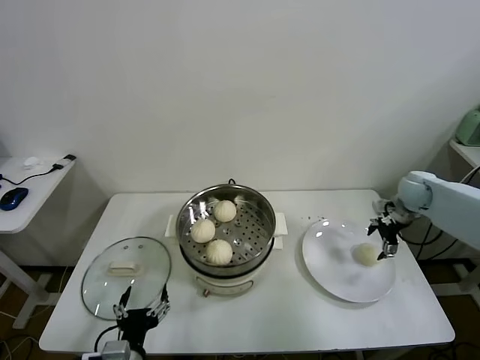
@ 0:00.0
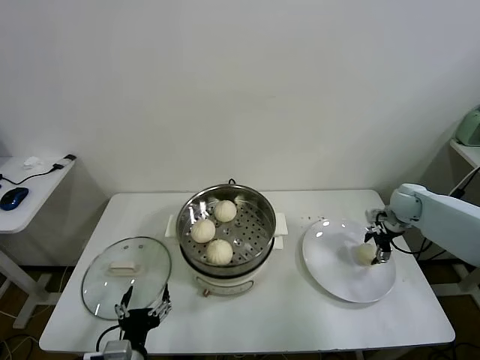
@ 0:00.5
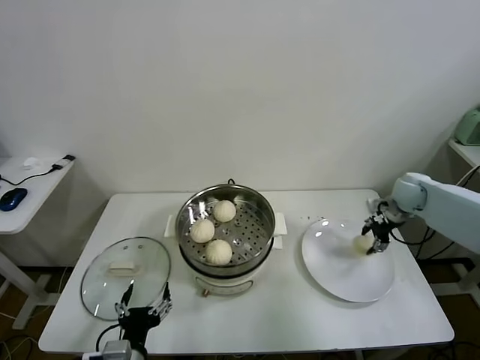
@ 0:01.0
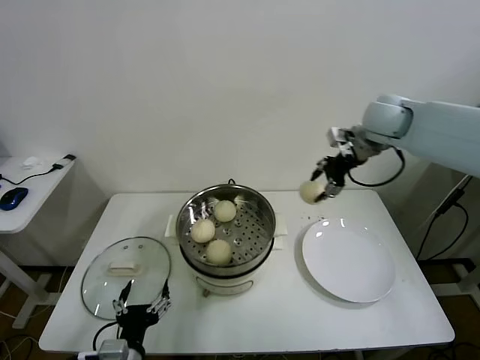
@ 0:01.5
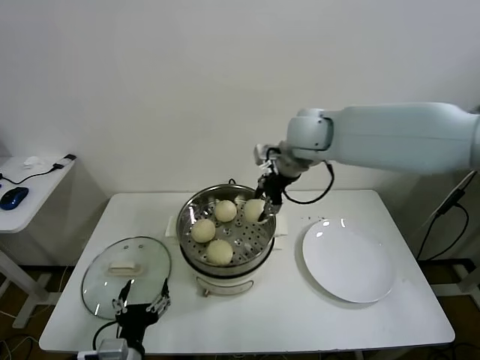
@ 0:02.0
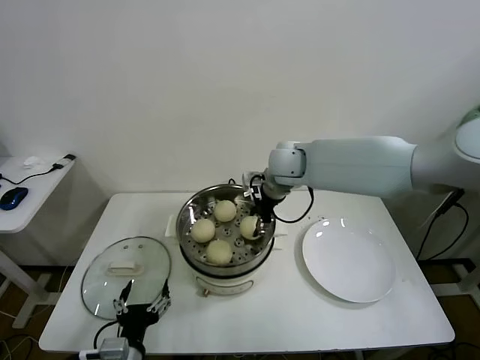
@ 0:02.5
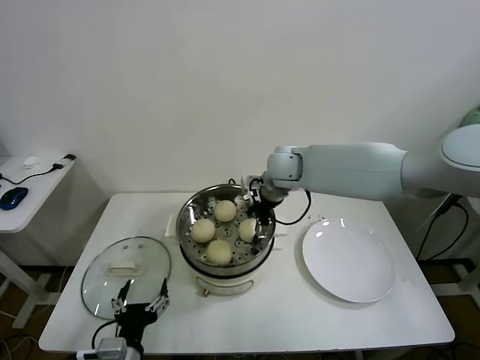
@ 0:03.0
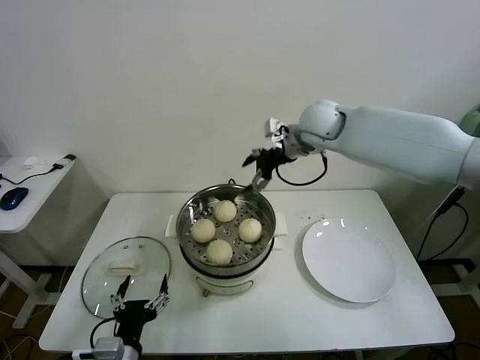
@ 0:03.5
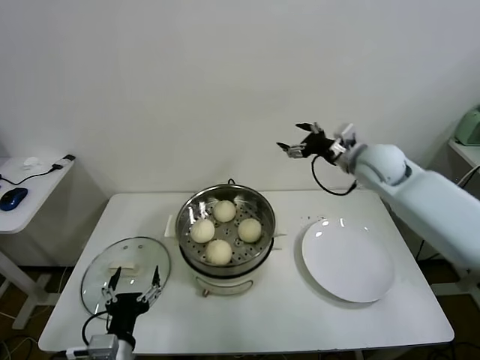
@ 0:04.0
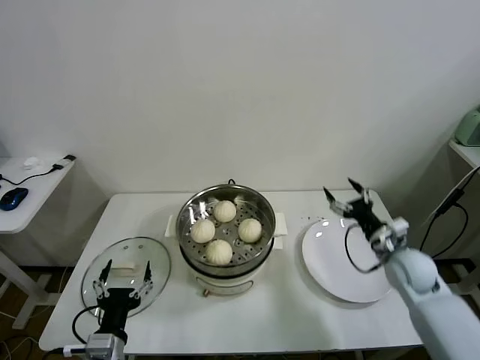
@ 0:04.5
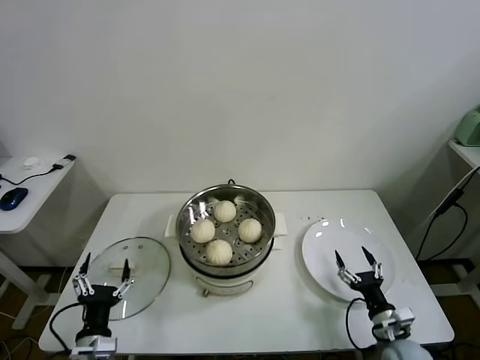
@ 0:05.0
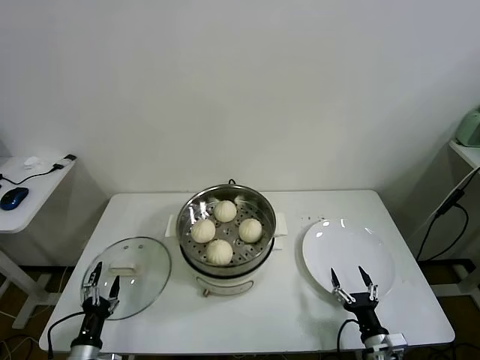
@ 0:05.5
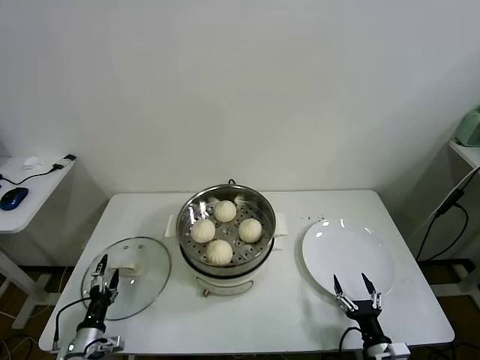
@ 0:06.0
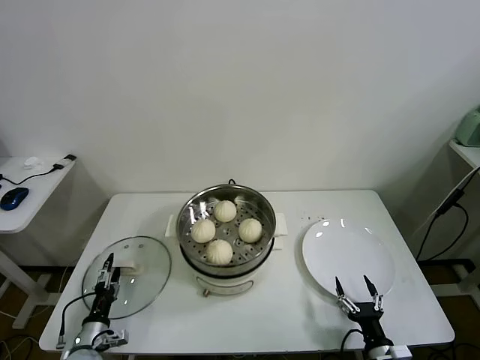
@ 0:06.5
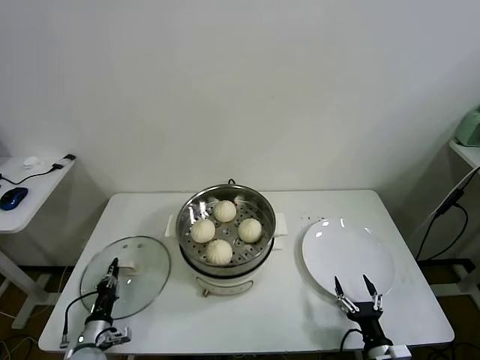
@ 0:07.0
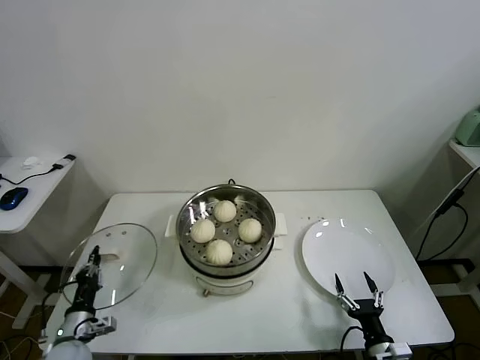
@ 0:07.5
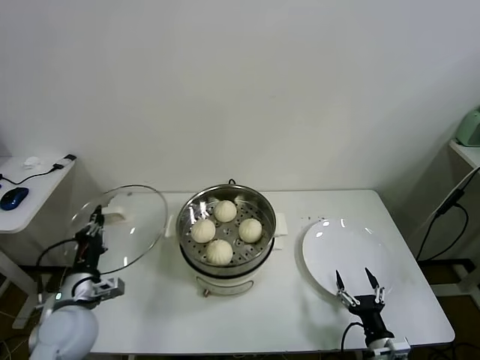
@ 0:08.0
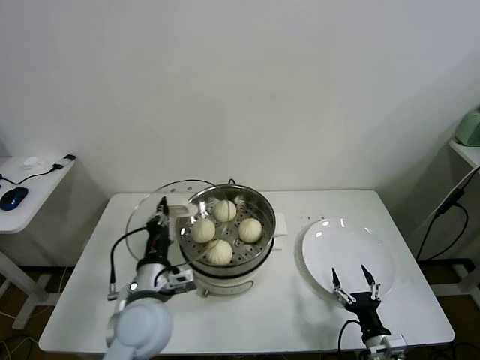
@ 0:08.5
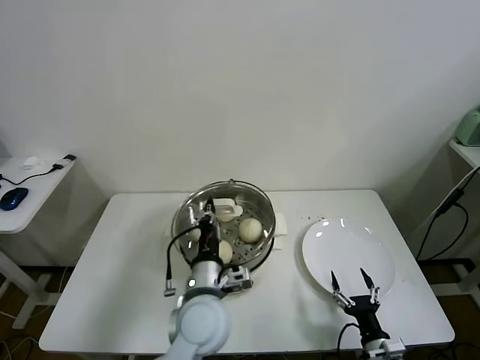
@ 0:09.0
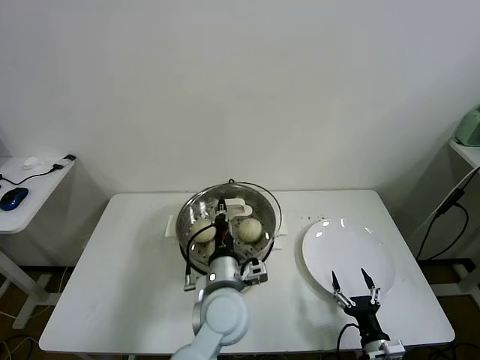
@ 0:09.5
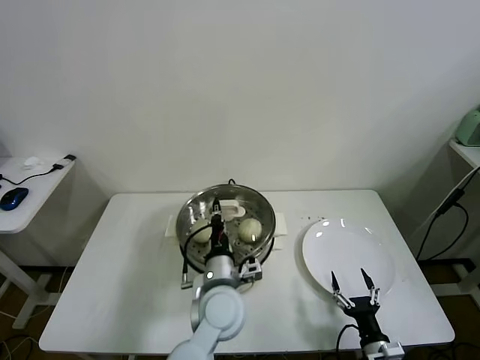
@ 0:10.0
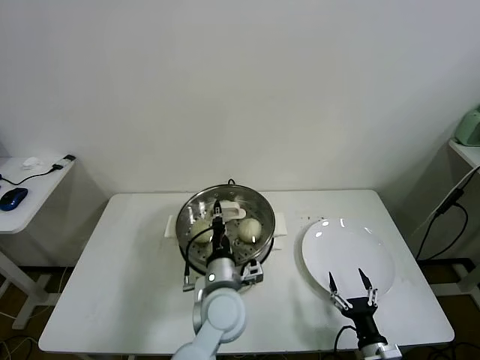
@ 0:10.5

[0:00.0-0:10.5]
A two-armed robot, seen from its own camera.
Task of the whole recording: take steamed baozi put them in steamer.
Step, 0:01.0 to 0:03.0: Place the baozi on the steamer with right gripper.
Step, 0:03.5 to 0:07.0: Grasp the pot lid with left gripper.
0:00.0 to 0:02.0: The right gripper moves to the left and upward, about 35 cm, and closes up.
0:02.0 to 0:04.0: The right gripper travels to the right and downward by about 15 cm, and opens its fingers.
0:04.0 to 0:06.5: The right gripper moves downward and backward, about 50 cm; the left gripper travels downward, to the left and forward by about 25 cm.
0:06.5 to 0:08.5: The left gripper shifts approximately 30 cm upward and to the right, and closes up.
0:08.5 to 0:10.5: The left gripper is displaced to the right by about 15 cm.

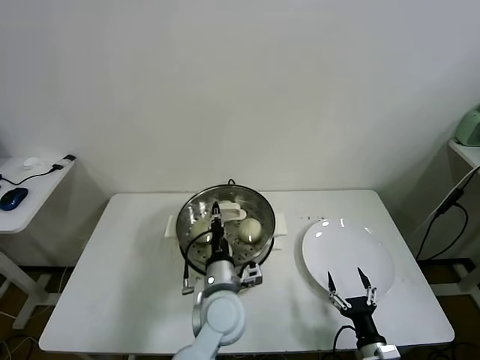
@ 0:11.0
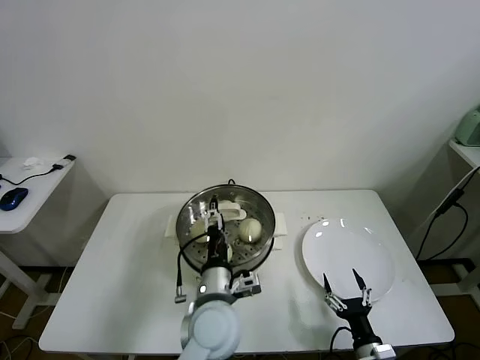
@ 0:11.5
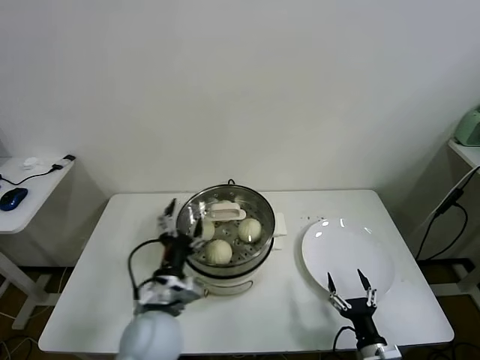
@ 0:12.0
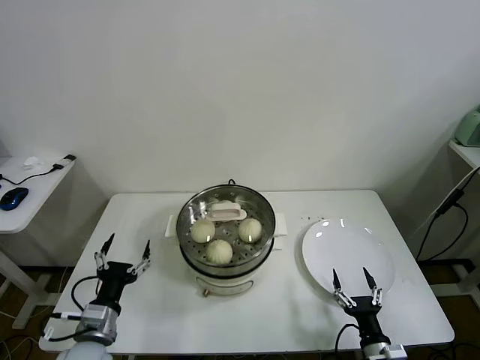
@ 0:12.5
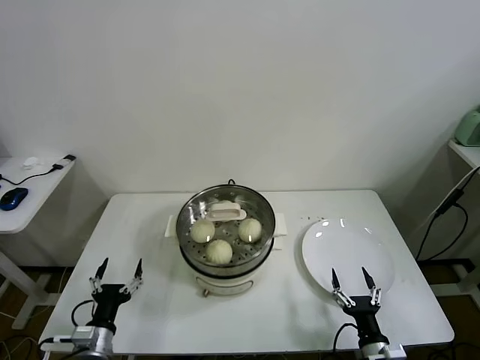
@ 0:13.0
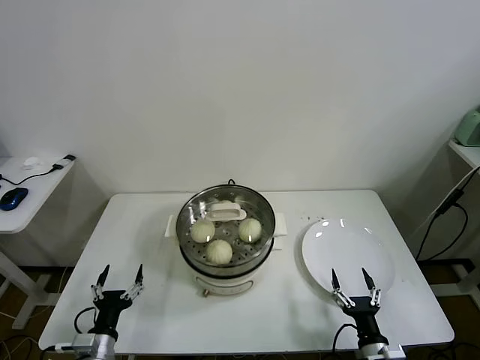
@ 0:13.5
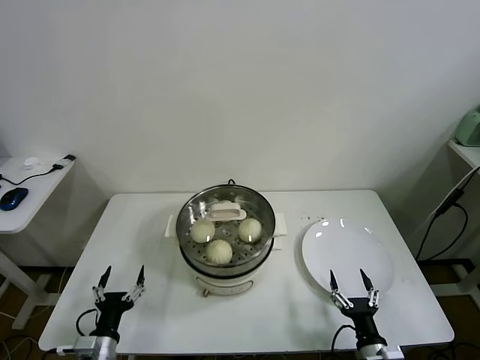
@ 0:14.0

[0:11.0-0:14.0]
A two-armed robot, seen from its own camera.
Task of the whole recording: take steamed baozi put them in steamer.
0:11.0 to 0:12.5: The left gripper moves to the left, about 25 cm, and opens.
0:12.5 to 0:14.0: The left gripper travels downward by about 10 cm.

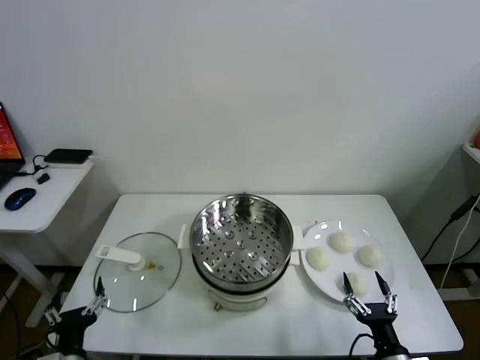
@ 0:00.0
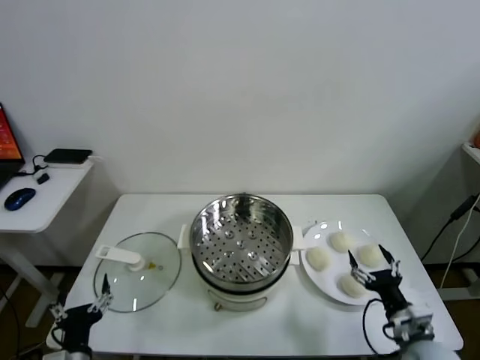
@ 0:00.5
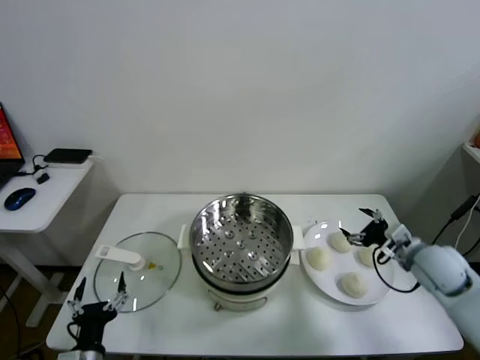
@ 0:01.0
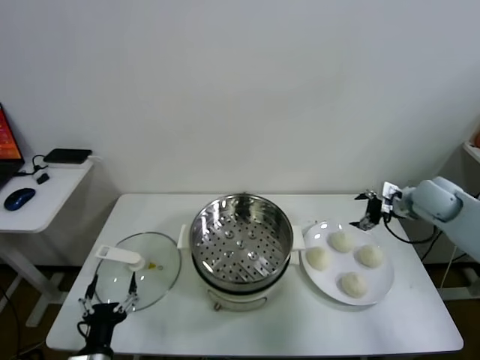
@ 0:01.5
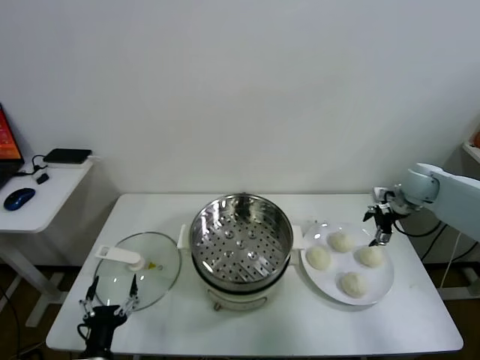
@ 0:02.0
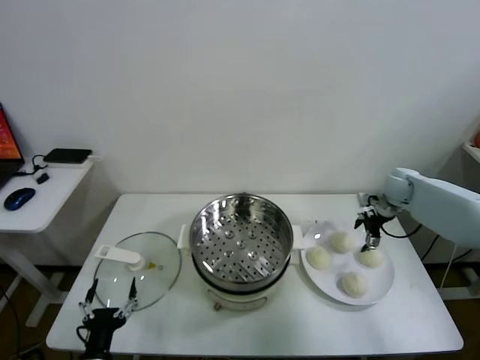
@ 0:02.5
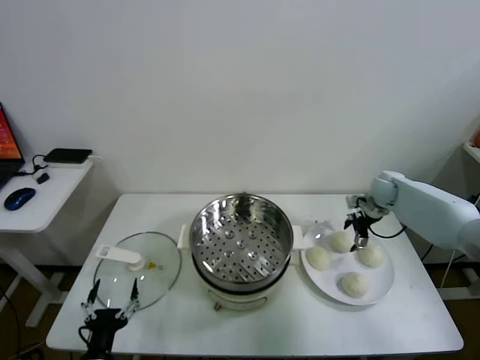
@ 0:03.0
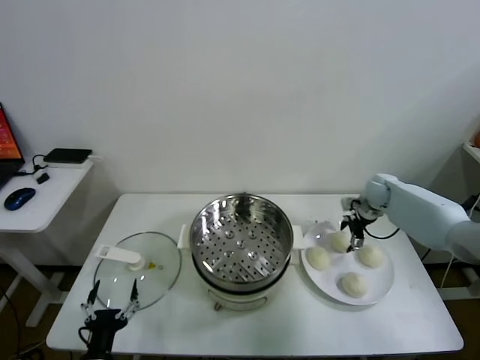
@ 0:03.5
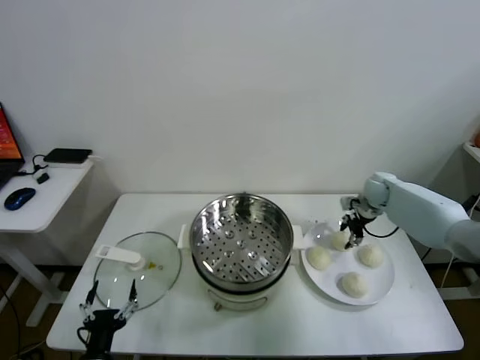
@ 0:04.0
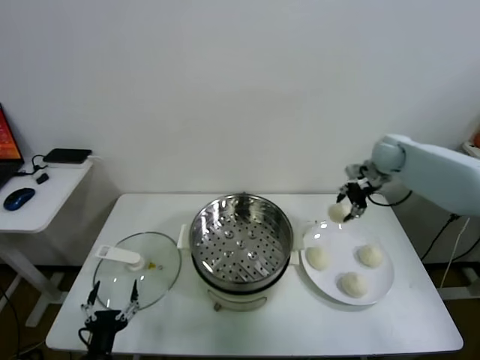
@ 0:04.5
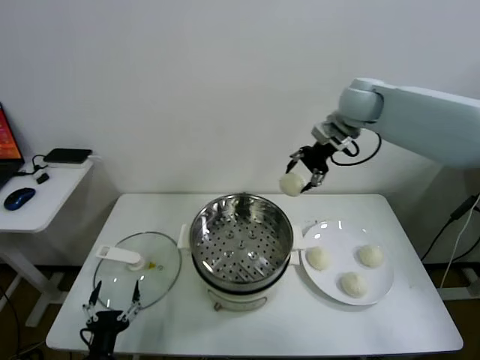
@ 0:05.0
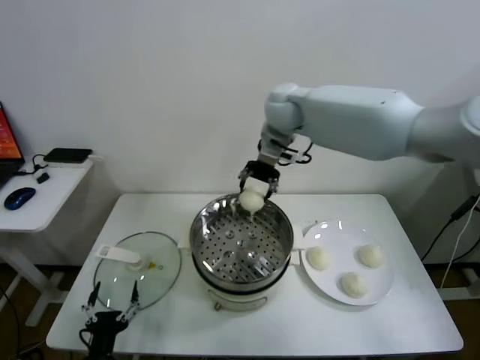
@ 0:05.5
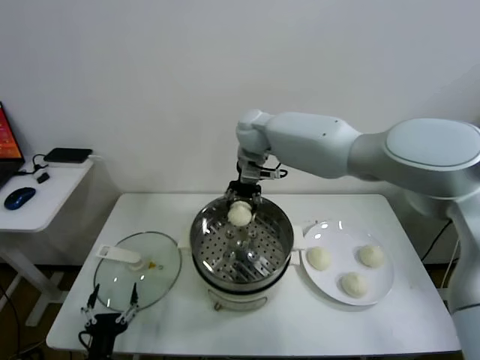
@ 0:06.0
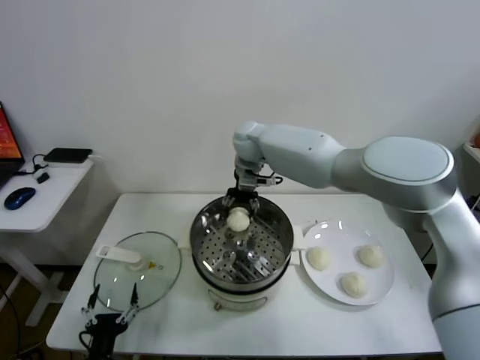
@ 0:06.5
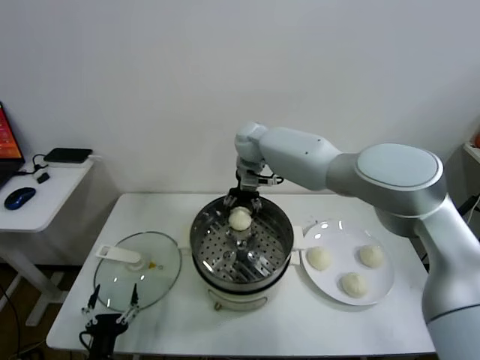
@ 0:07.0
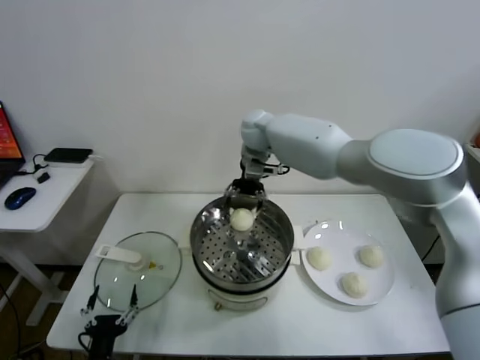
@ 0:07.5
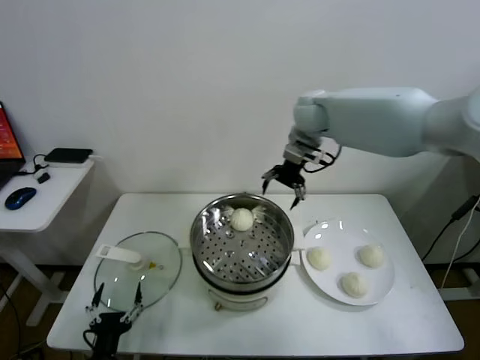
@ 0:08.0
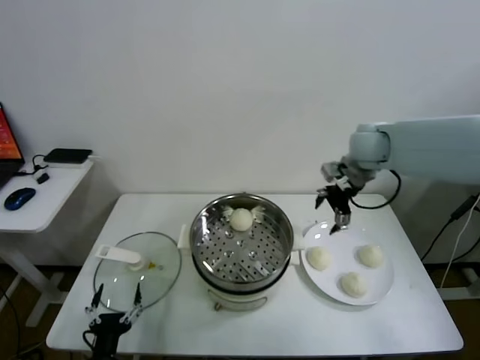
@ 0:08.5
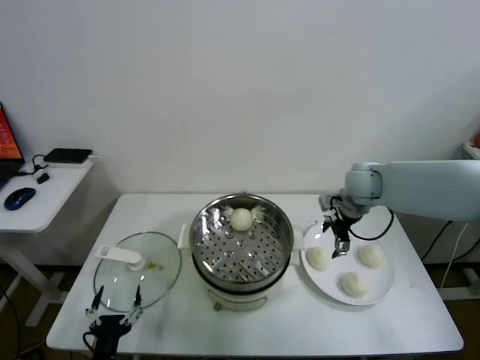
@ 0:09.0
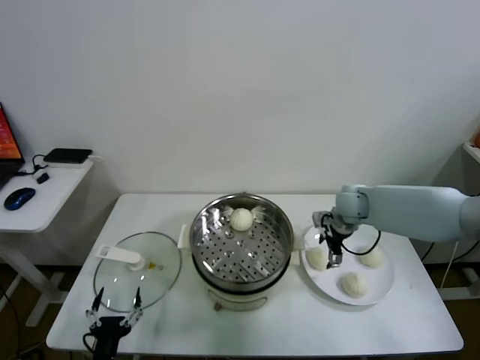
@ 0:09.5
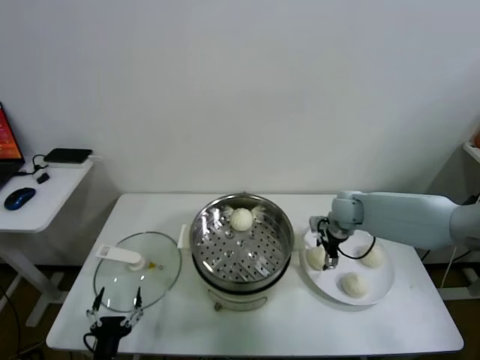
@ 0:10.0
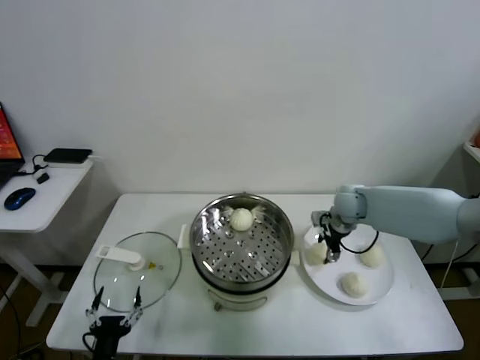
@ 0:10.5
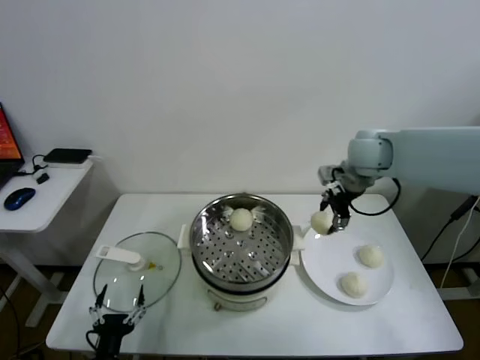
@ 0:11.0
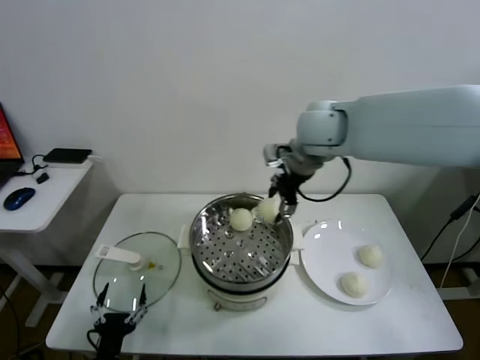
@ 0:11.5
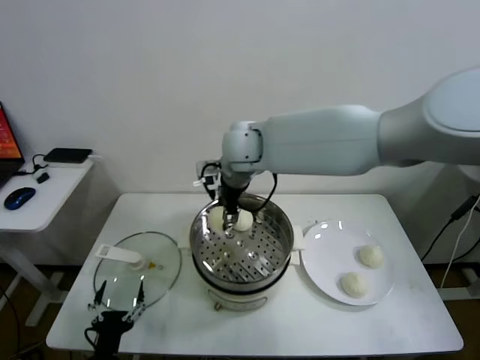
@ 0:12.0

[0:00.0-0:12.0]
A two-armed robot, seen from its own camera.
Task of the whole recording: take steamed baozi put them in steamer.
Step, 0:00.0 to 0:03.5: Grasp the baozi in the plate with right gripper.
Step, 0:04.0 to 0:07.0: Place the baozi on the steamer with right gripper.
Step, 0:07.5 to 0:10.0: Grasp the baozi in the plate with right gripper.
0:02.0 to 0:04.0: The right gripper travels downward by approximately 5 cm, and closes its fingers.
0:04.0 to 0:06.0: The right gripper is displaced to the left and upward by about 40 cm.
0:06.0 to 0:08.0: The right gripper moves to the right, roughly 15 cm, and opens.
0:08.0 to 0:10.0: The right gripper travels downward by some 25 cm.
0:10.0 to 0:12.0: The right gripper goes some 35 cm to the left and upward.
